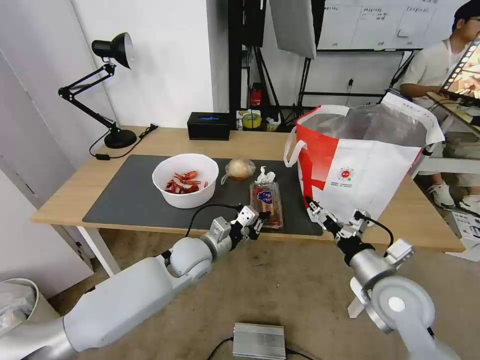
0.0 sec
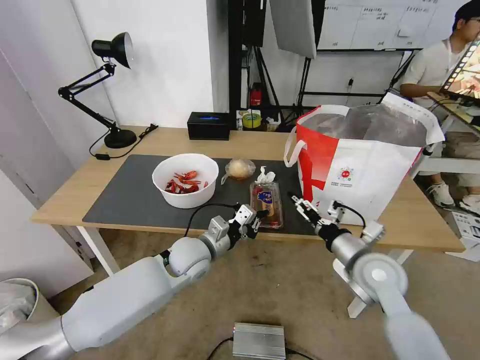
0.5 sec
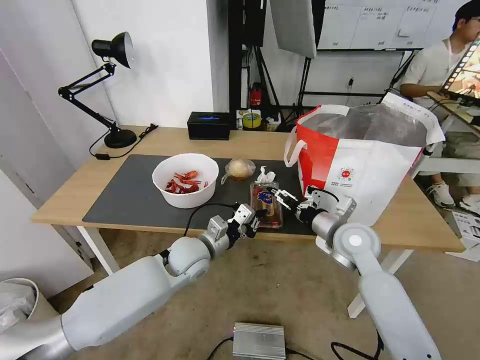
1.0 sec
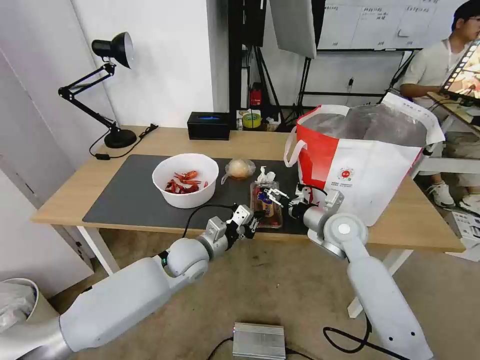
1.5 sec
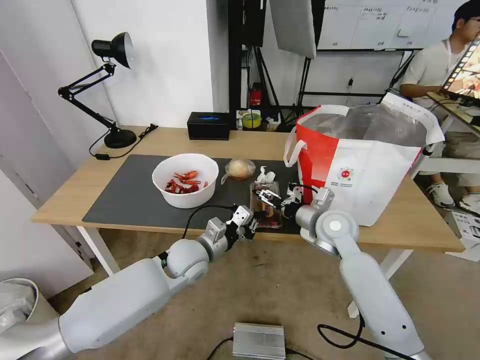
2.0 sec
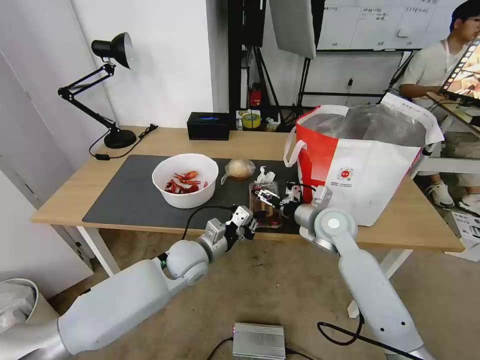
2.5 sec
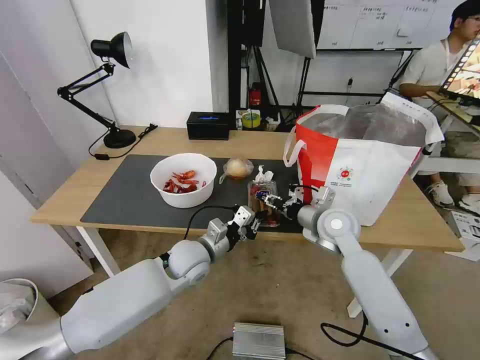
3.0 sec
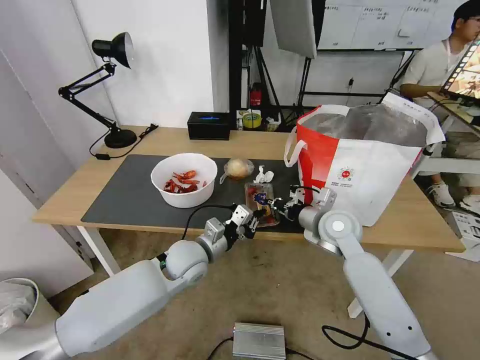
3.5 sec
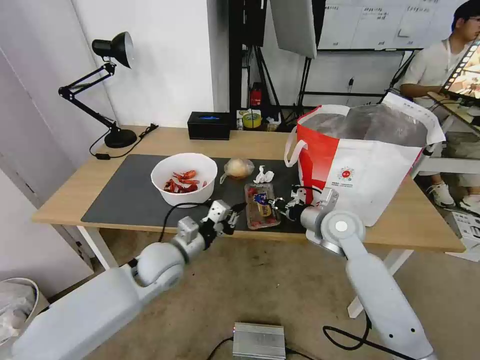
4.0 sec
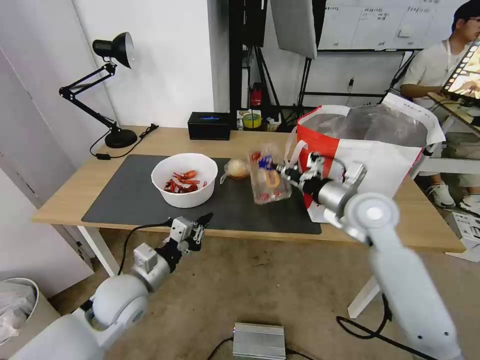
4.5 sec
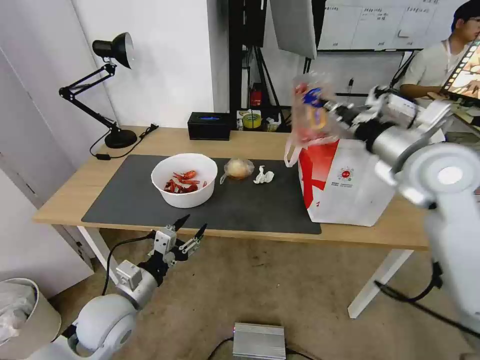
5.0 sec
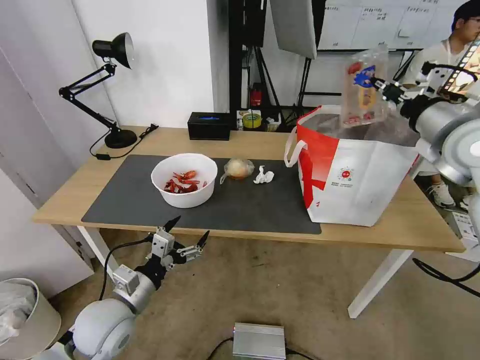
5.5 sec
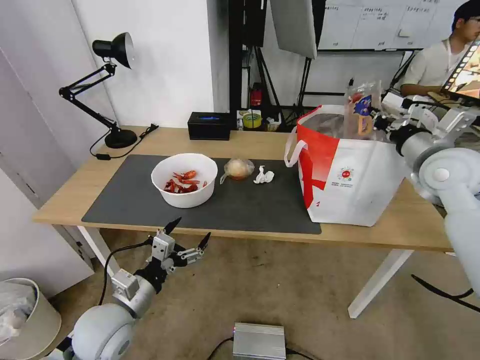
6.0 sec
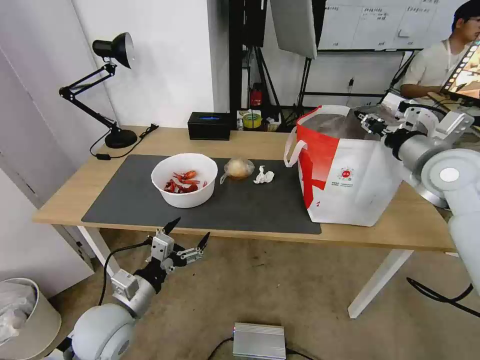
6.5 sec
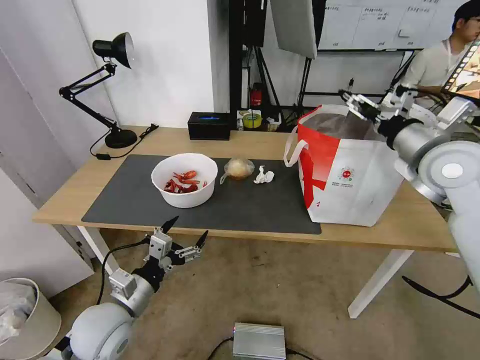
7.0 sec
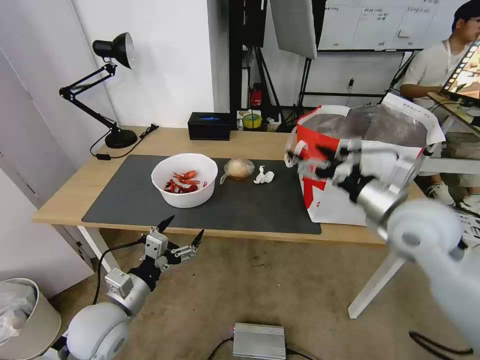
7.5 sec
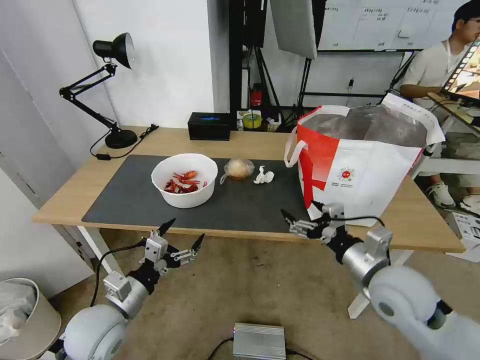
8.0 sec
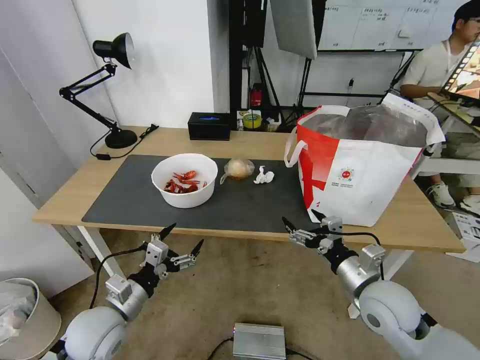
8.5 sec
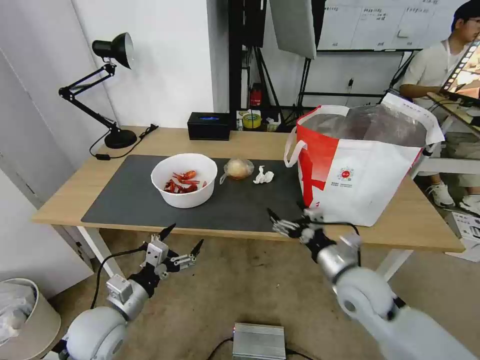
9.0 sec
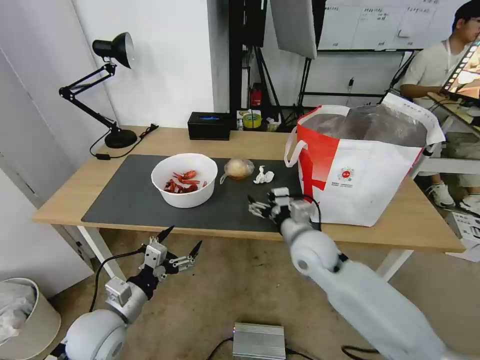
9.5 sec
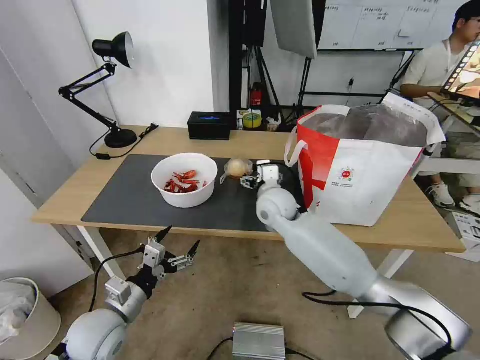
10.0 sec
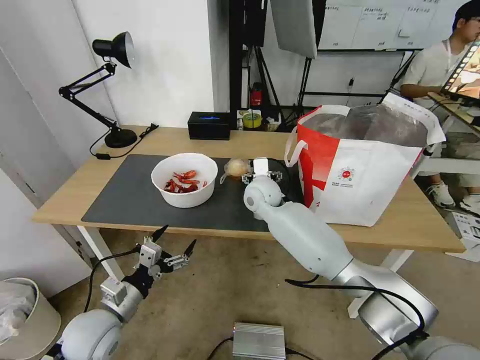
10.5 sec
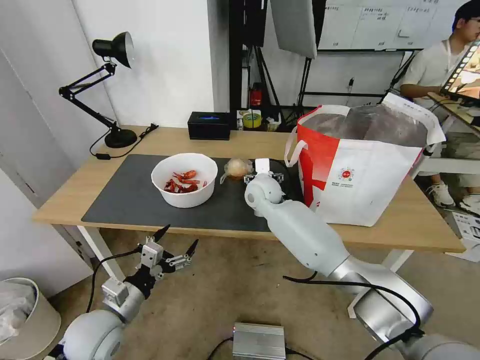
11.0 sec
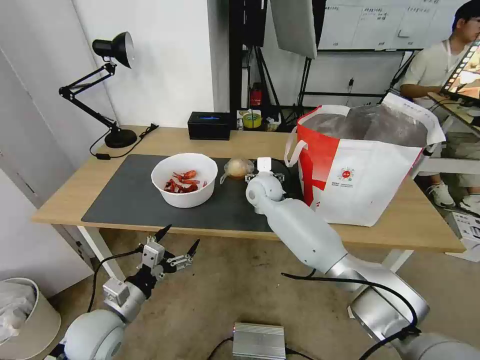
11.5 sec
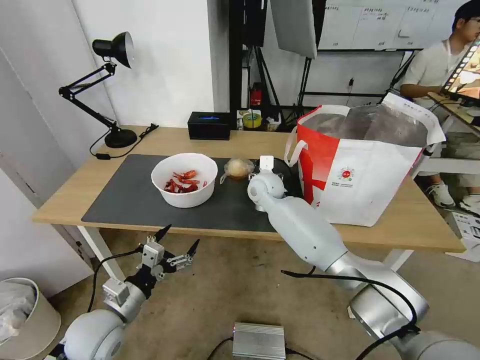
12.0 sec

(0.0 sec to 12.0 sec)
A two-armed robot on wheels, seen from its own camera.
Task of the whole recording: Pick up the trash from the table and place it into the takeout bag.
0.0 sec - 2.0 sec: The right gripper goes some 20 cm forward and to the left.
2.0 sec - 4.0 sec: The right gripper closes its fingers, while the left gripper is displaced to the left by some 5 cm.
4.0 sec - 6.0 sec: The right gripper goes roughly 20 cm upward and to the right. The left gripper shifts approximately 15 cm backward and to the left, and opens up.
6.0 sec - 8.0 sec: The right gripper is displaced backward, downward and to the left by about 25 cm, and opens its fingers.
8.0 sec - 10.0 sec: The right gripper moves forward and to the left, approximately 30 cm.
10.0 sec - 12.0 sec: The right gripper moves forward, roughly 10 cm.

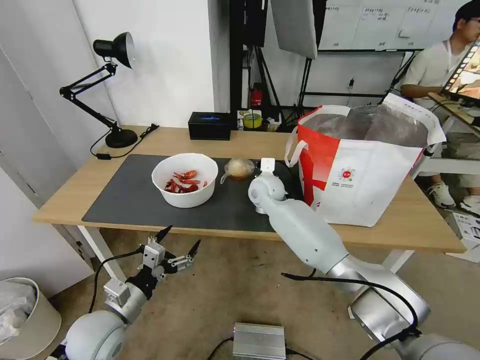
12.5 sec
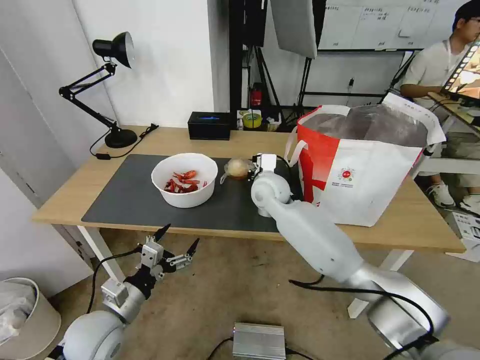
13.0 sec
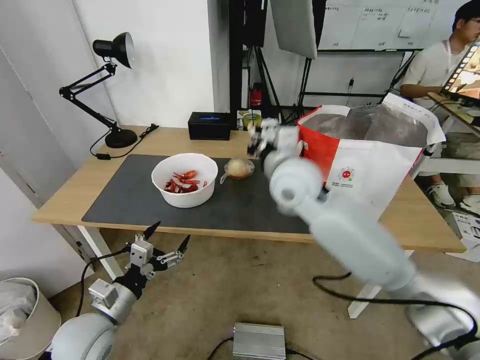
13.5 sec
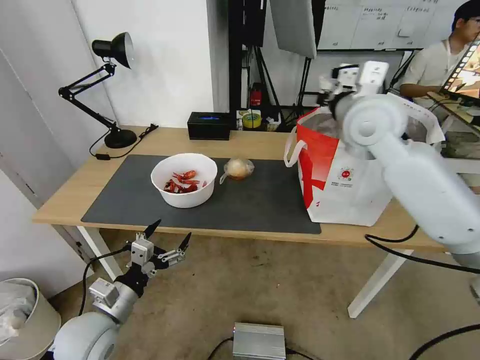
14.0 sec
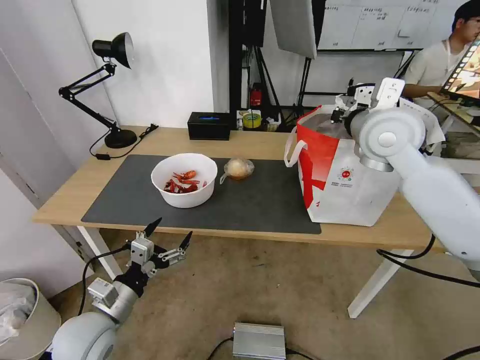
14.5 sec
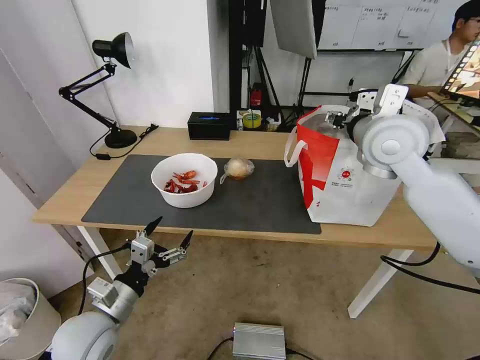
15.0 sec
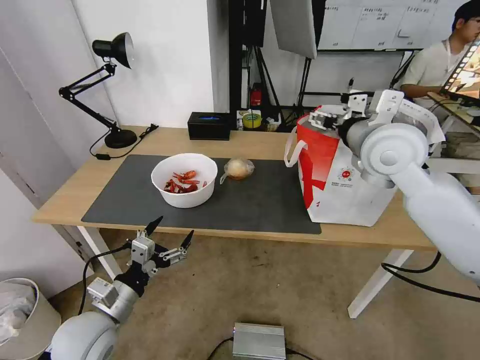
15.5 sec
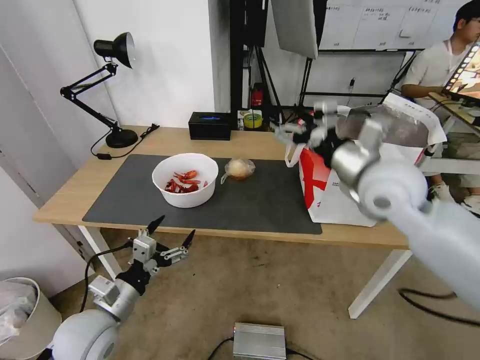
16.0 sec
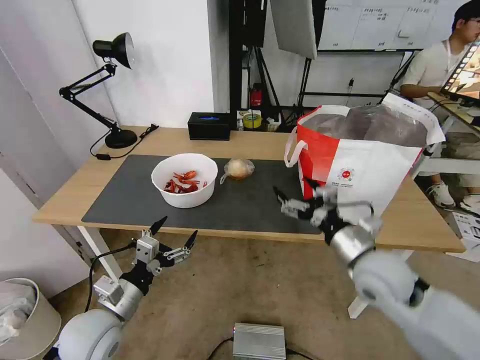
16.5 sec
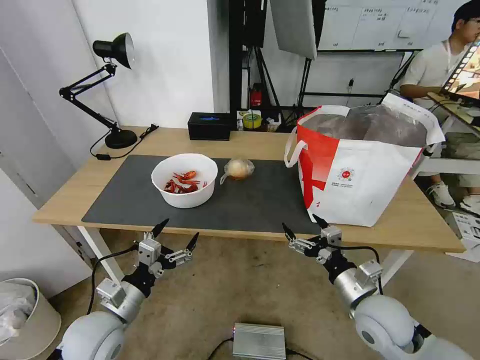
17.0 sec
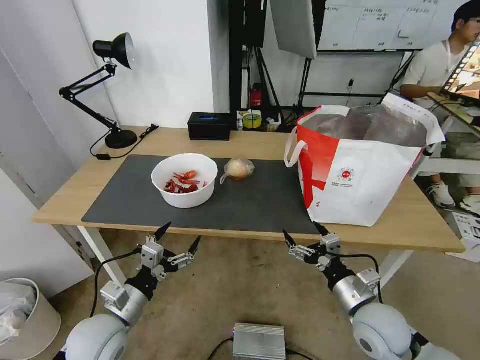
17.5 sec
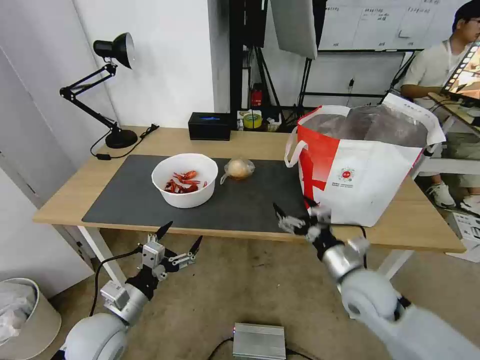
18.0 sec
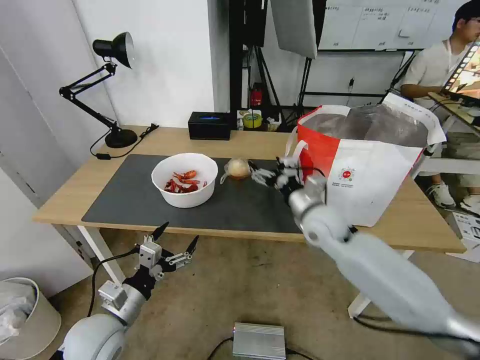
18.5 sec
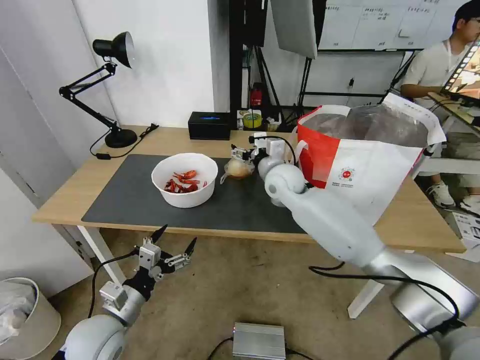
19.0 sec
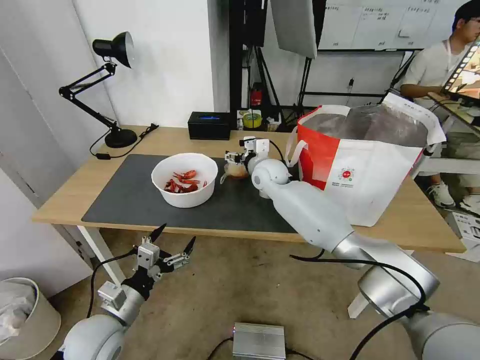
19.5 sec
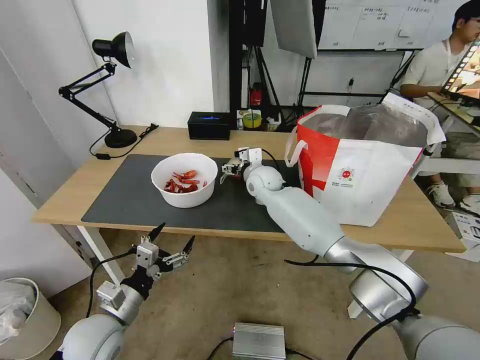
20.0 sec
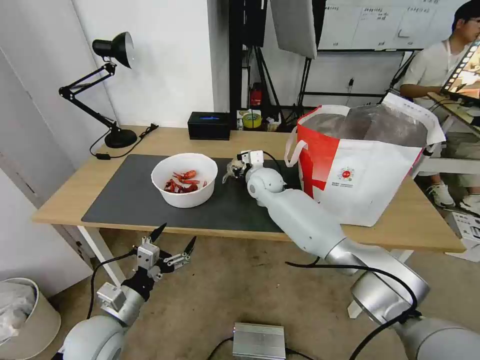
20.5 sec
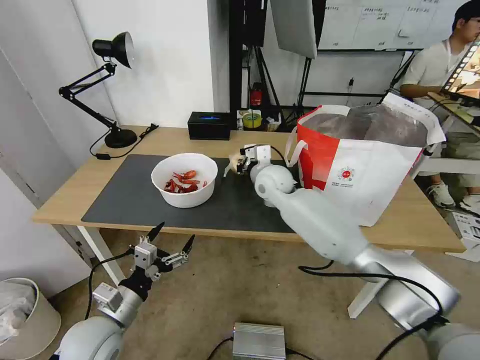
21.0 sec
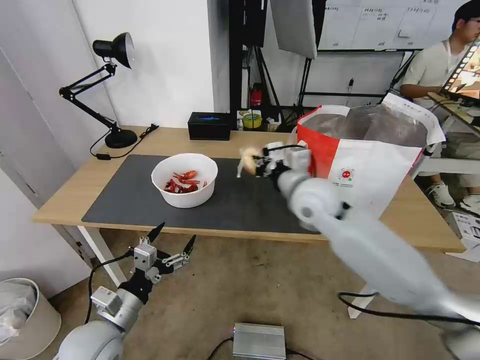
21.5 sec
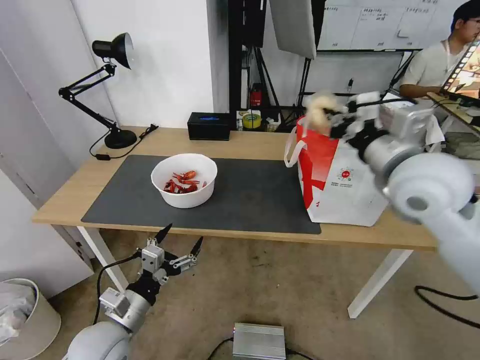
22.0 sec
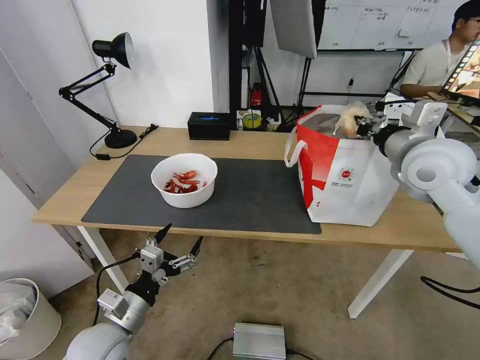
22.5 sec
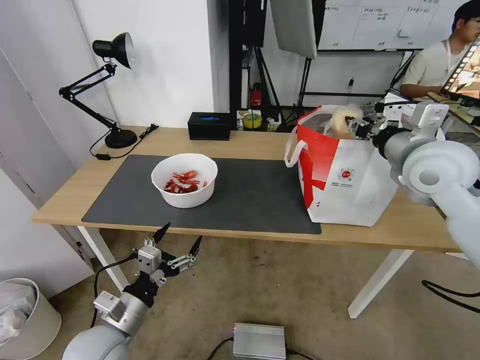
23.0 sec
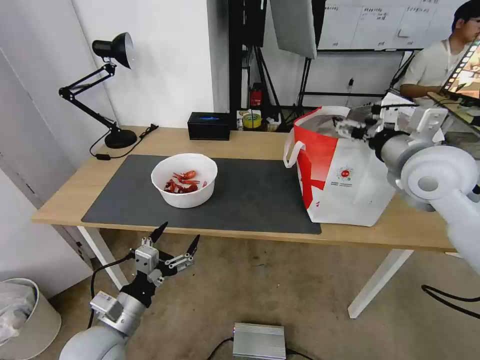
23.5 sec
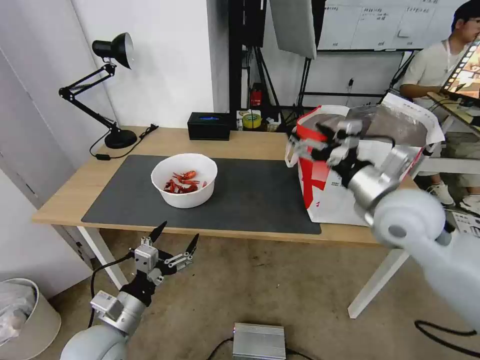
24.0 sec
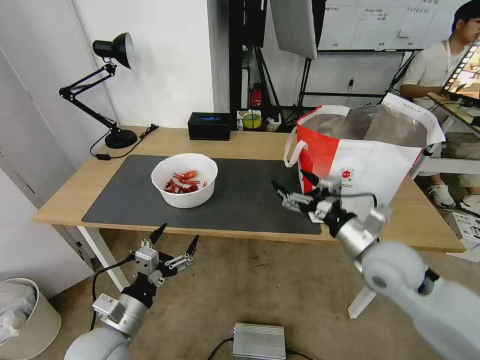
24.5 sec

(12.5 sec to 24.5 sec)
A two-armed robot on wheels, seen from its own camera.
Task of the whole recording: Pick up the trash from the table and place it into the takeout bag.
12.5 sec - 14.5 sec: The right gripper moves upward, to the right and backward, roughly 30 cm.
14.5 sec - 16.5 sec: The right gripper shifts about 25 cm downward and backward, and opens up.
16.5 sec - 18.5 sec: The right gripper goes some 15 cm forward and to the left.
18.5 sec - 20.5 sec: The right gripper is displaced forward and to the left by about 20 cm, and closes.
20.5 sec - 22.5 sec: The right gripper travels to the right, upward and backward by roughly 35 cm, and closes up.
22.5 sec - 24.5 sec: The right gripper travels downward and backward by approximately 20 cm, and opens.

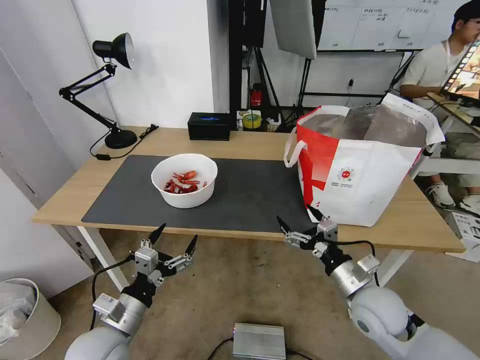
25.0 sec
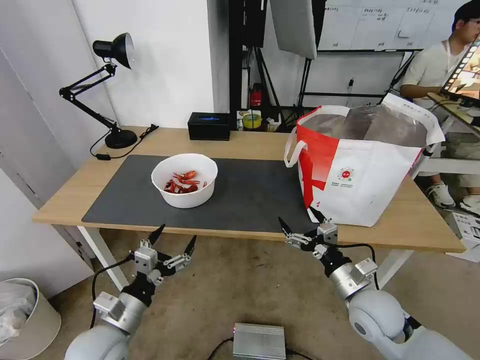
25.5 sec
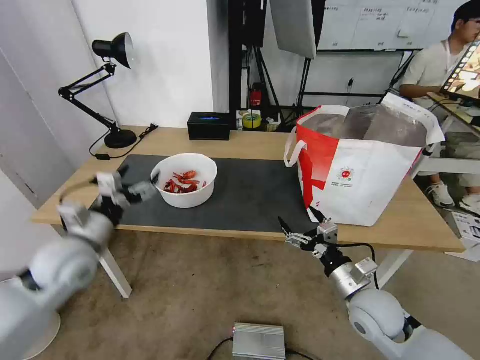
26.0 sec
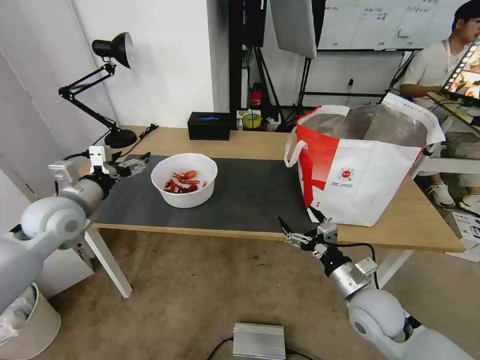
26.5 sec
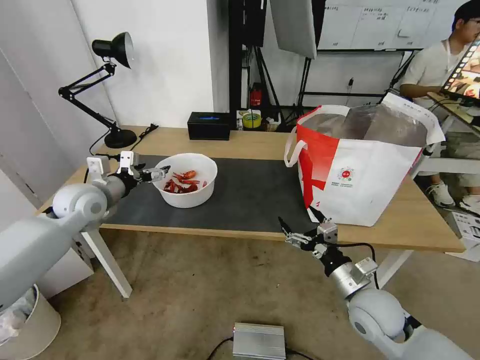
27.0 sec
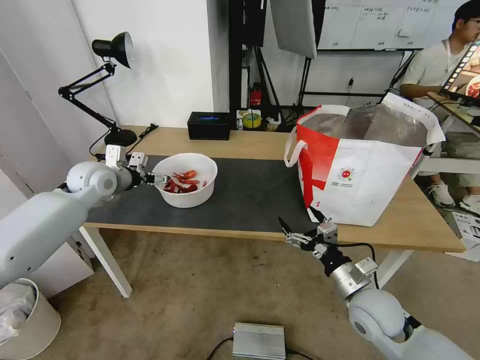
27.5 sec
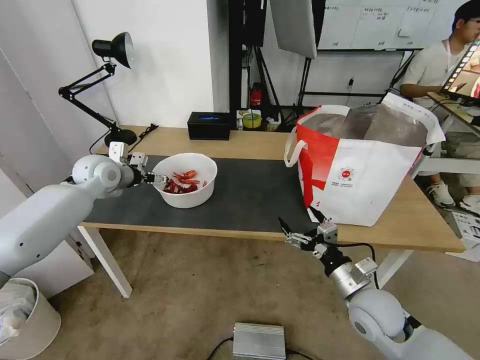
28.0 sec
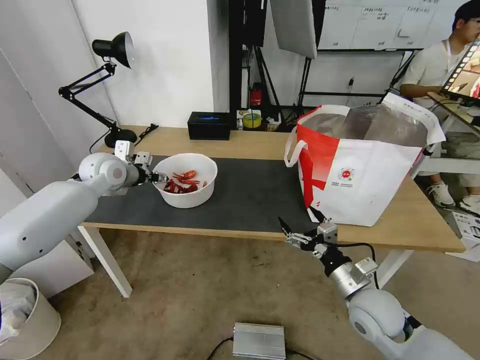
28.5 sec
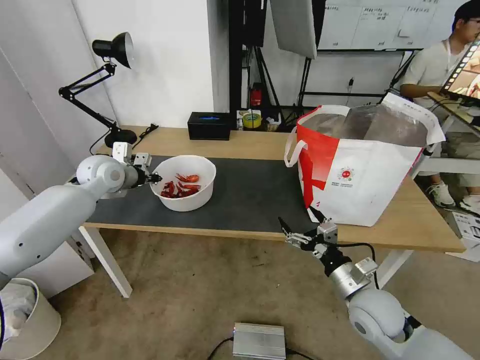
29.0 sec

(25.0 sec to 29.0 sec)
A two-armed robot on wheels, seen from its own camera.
Task of the whole recording: Pick up the trash from the table and place it into the takeout bag.
25.0 sec - 27.0 sec: The left gripper moves forward and upward, about 30 cm.
27.0 sec - 29.0 sec: The left gripper goes roughly 10 cm forward, and closes.
